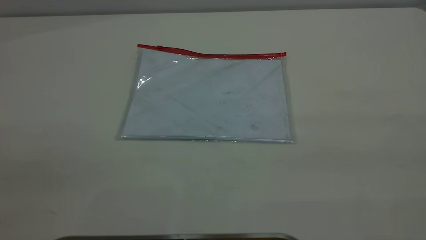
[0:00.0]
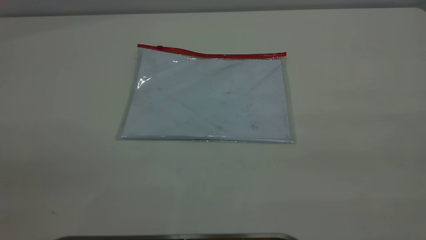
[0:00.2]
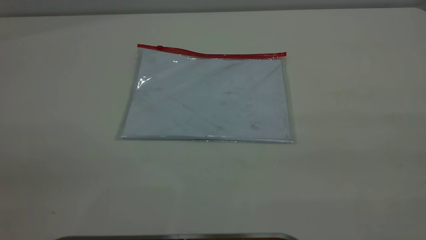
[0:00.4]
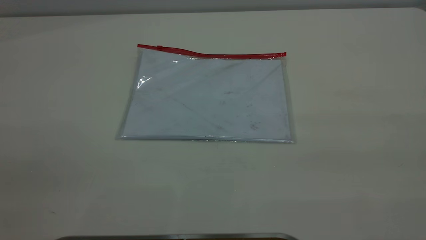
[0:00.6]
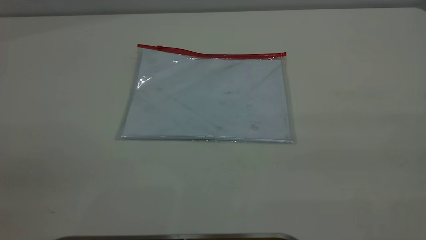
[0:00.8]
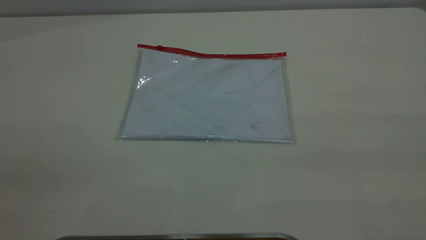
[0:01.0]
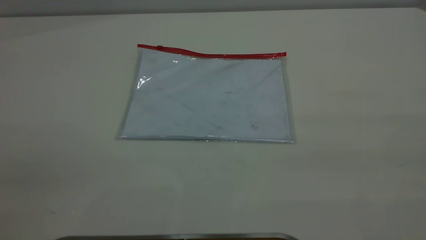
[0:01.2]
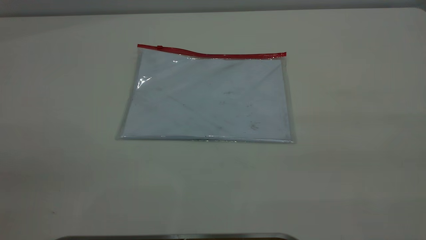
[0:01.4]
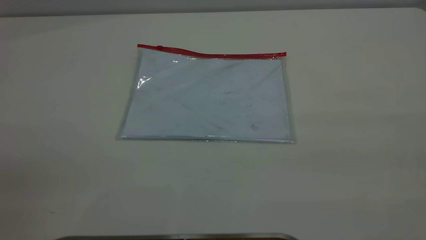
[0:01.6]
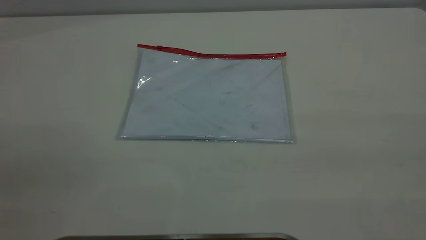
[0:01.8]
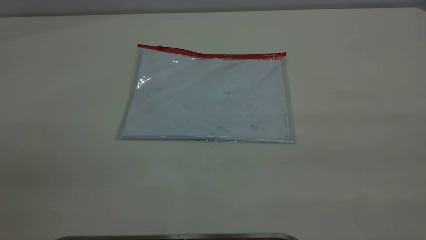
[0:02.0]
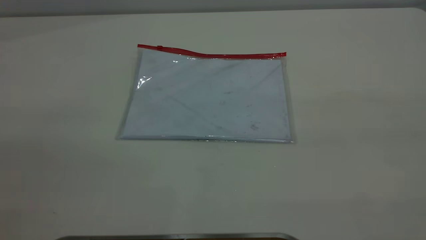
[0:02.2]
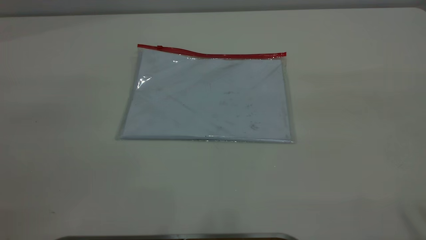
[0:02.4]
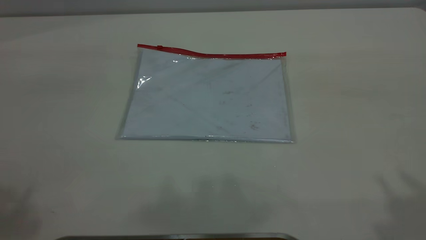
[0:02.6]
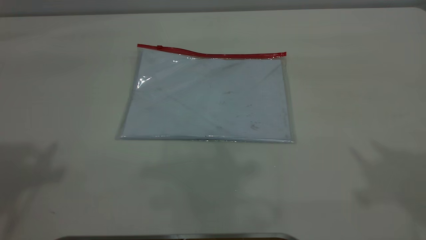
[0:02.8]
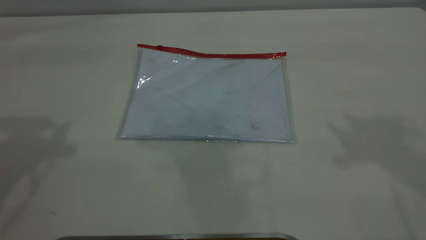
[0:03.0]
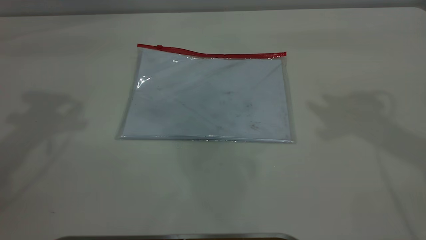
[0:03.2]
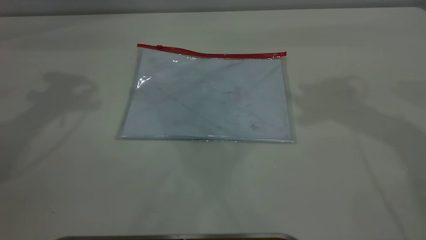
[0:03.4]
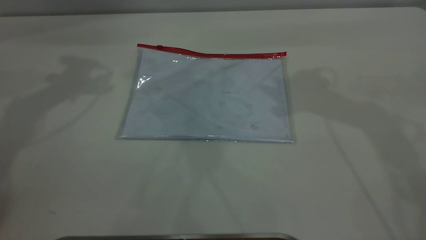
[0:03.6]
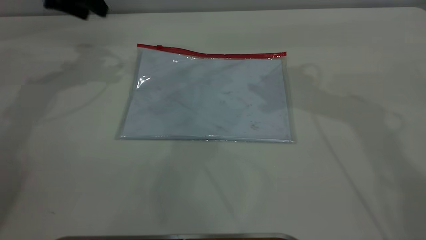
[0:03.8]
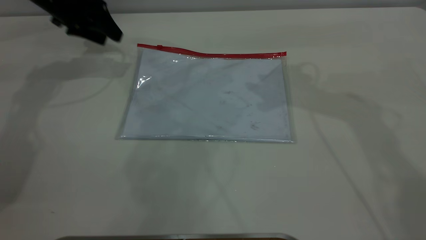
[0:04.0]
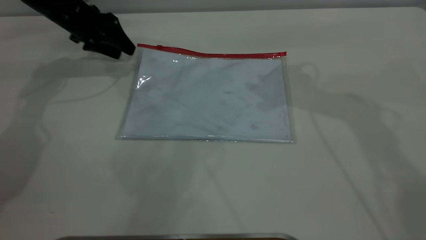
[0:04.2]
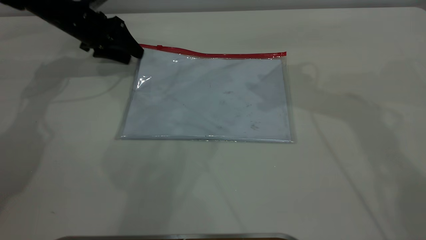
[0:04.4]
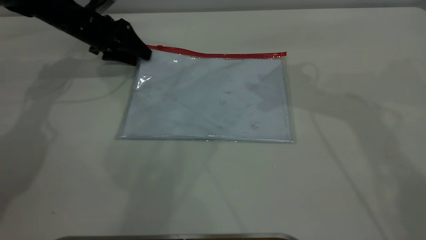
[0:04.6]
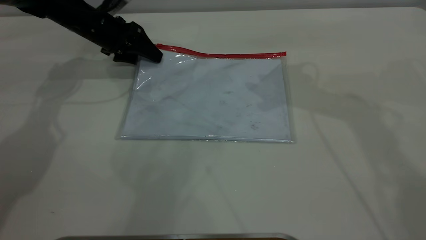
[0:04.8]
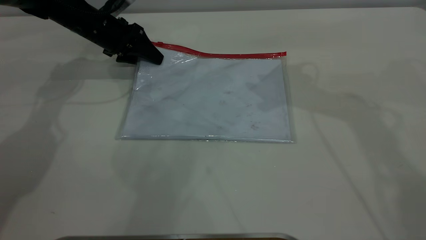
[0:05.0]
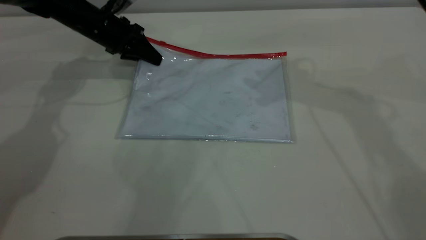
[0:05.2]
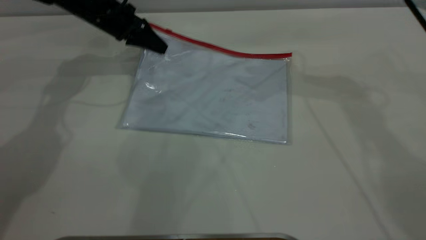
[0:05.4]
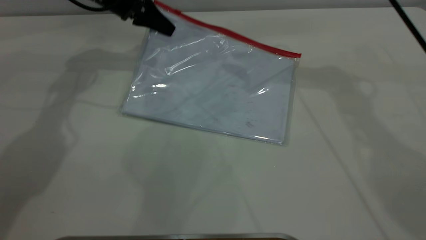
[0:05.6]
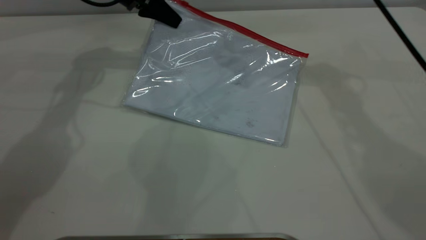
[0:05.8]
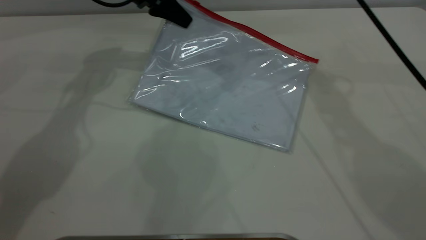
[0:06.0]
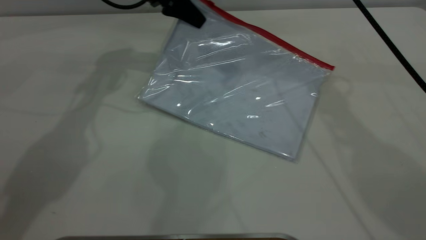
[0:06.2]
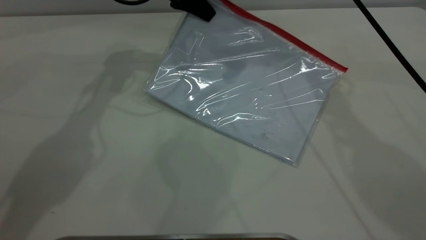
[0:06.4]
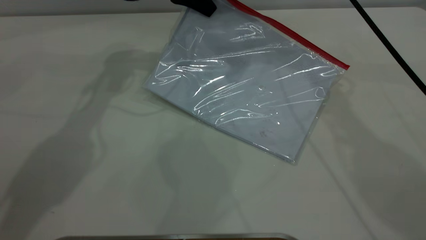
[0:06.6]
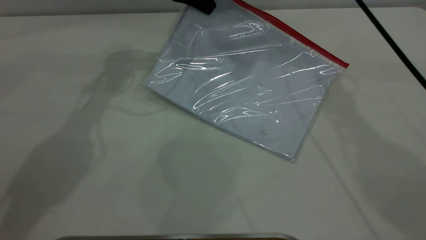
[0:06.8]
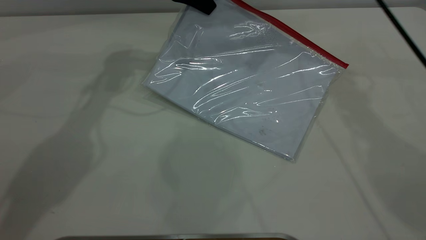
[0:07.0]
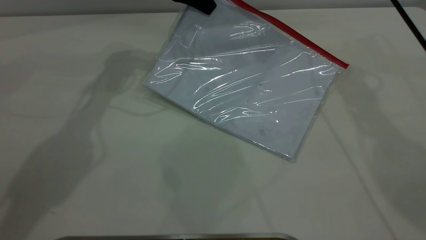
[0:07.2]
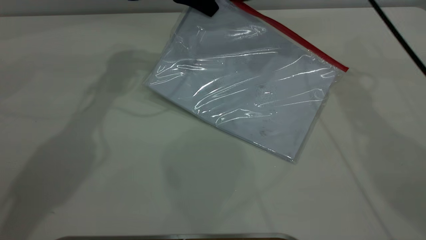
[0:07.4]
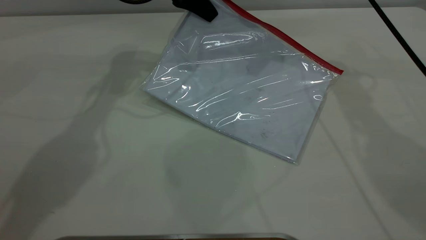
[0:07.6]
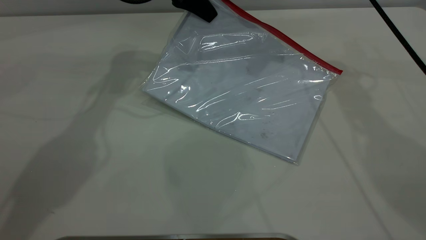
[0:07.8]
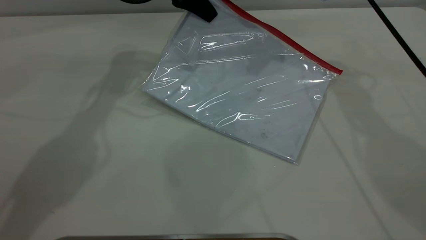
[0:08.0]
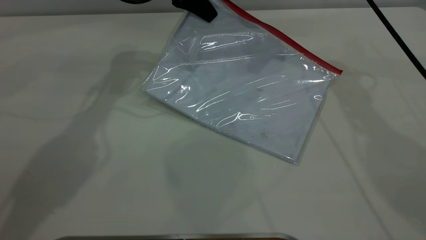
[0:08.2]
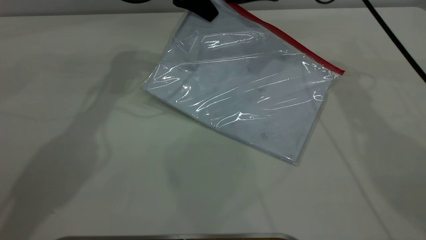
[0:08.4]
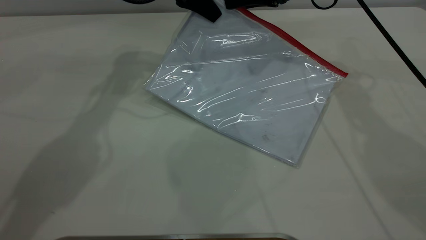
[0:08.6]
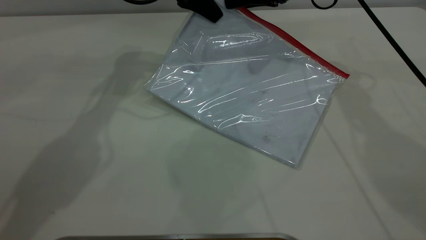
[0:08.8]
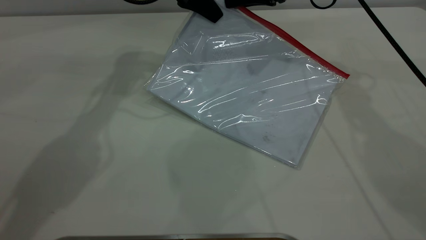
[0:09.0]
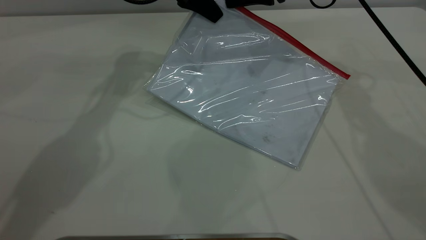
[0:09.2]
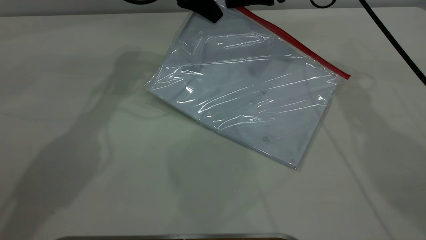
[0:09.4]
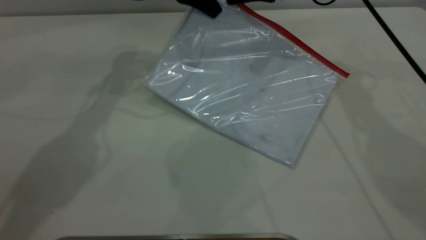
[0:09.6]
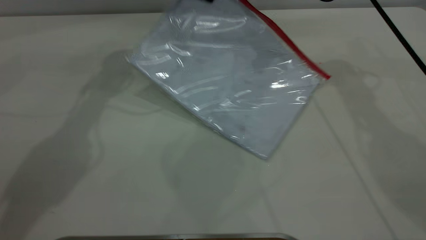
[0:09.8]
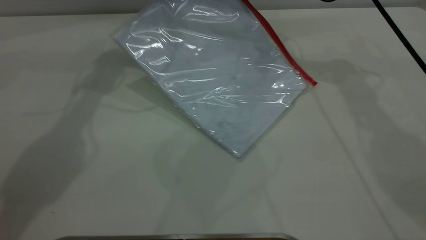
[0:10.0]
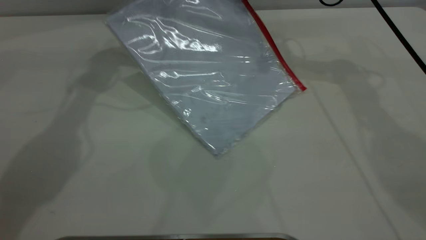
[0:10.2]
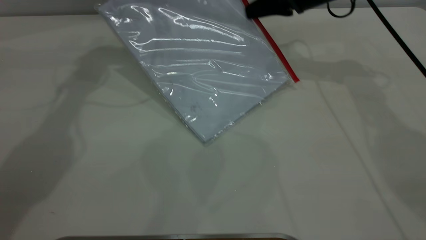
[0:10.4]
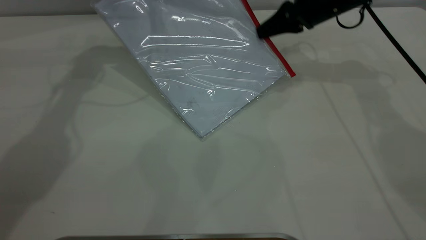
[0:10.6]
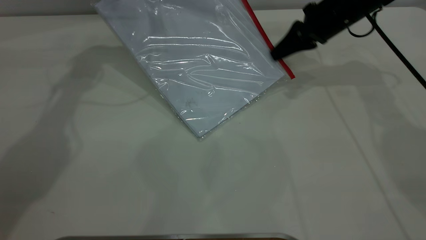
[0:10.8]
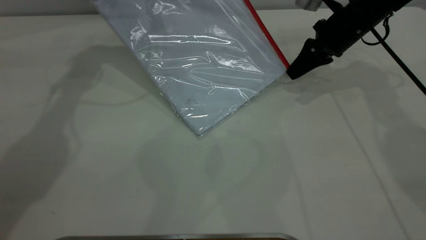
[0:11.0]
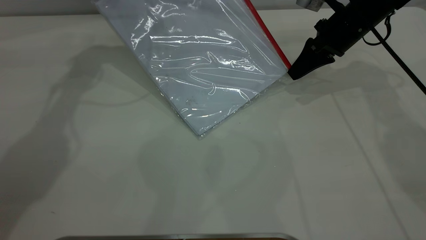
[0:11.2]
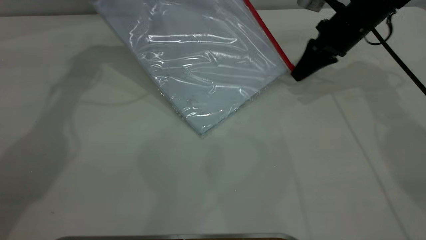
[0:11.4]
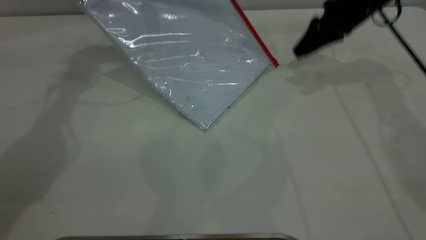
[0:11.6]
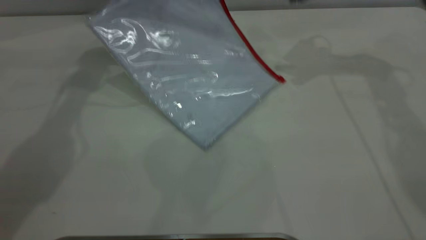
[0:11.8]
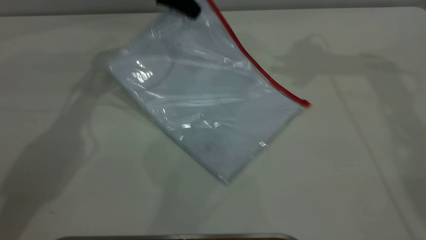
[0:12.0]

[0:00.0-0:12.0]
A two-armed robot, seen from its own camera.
Step, 0:00.0 to 0:05.2: Pick up the transparent plastic bag with the left gripper.
Step, 0:05.6 to 0:11.4: Pulling up the zipper on the transparent plastic bag with the right gripper to close it.
0:00.0 to 0:01.6: Both grippers stay put.
0:03.0 to 0:04.4: The left gripper is displaced downward and forward by roughly 40 cm.
0:04.4 to 0:06.0: The left gripper shifts approximately 15 cm to the right and upward, and closes its fingers, while the right gripper moves to the left and forward, roughly 10 cm.
0:06.0 to 0:07.6: The left gripper moves approximately 5 cm, while the right gripper shifts by roughly 5 cm.
0:07.6 to 0:09.0: The right gripper closes.
0:09.0 to 0:10.4: The left gripper shifts about 5 cm to the left. The right gripper shifts by approximately 5 cm, and closes up.
0:10.4 to 0:12.0: The right gripper shifts approximately 20 cm upward, and opens up, while the left gripper heads downward, covering roughly 5 cm.

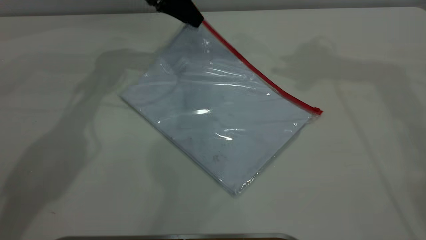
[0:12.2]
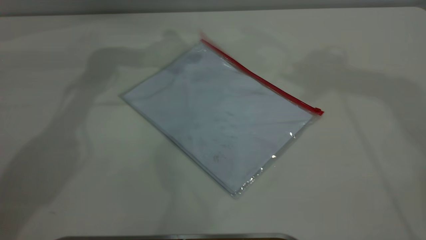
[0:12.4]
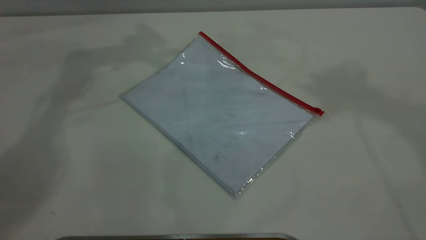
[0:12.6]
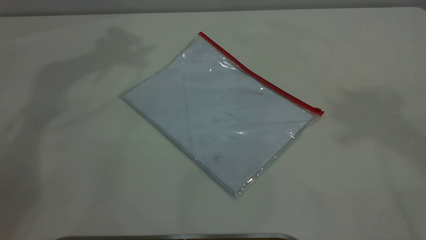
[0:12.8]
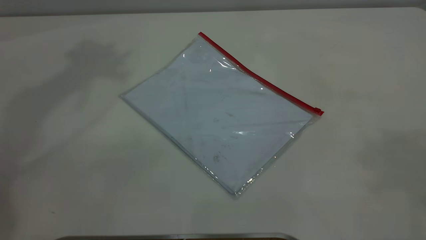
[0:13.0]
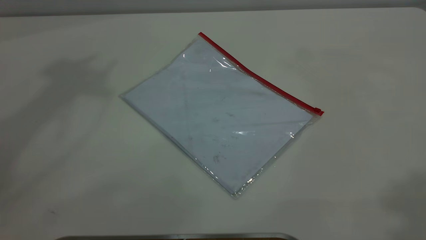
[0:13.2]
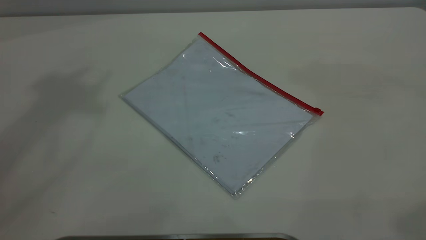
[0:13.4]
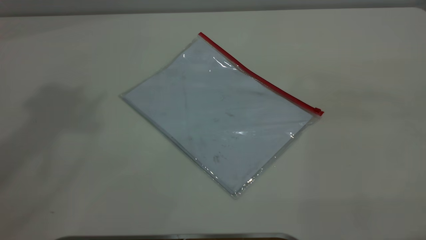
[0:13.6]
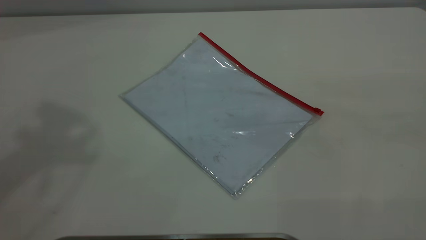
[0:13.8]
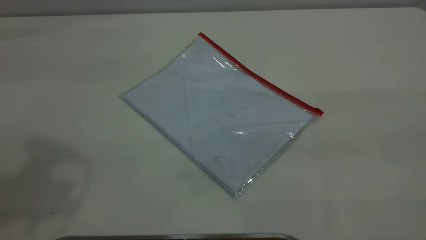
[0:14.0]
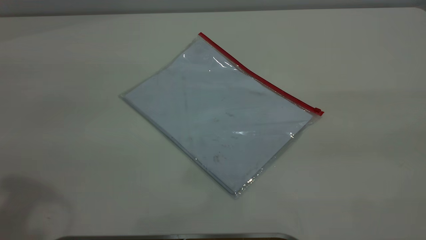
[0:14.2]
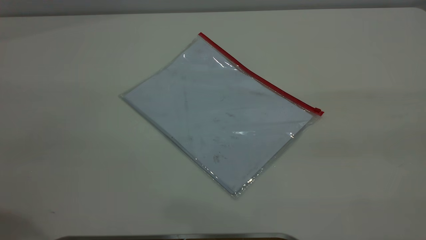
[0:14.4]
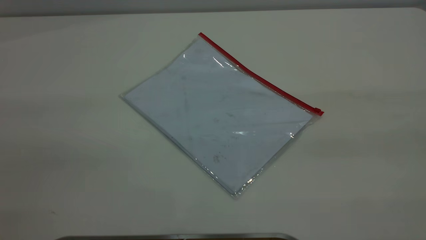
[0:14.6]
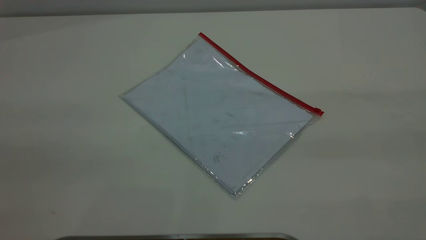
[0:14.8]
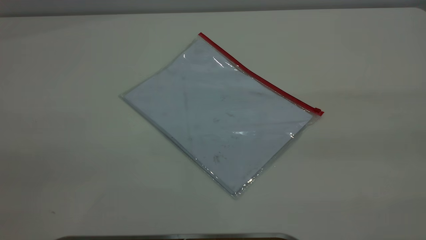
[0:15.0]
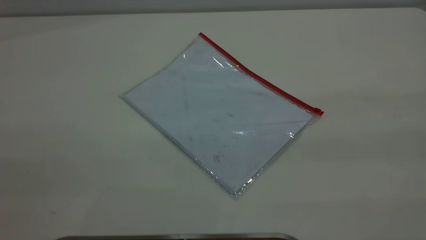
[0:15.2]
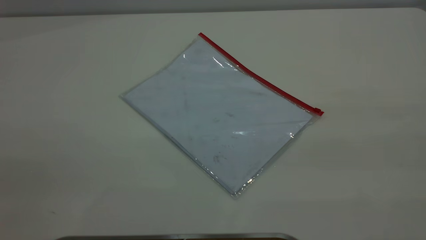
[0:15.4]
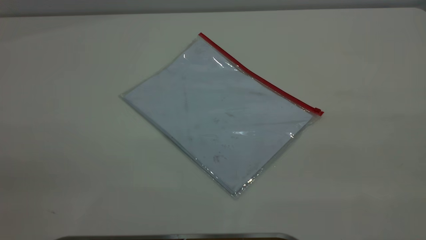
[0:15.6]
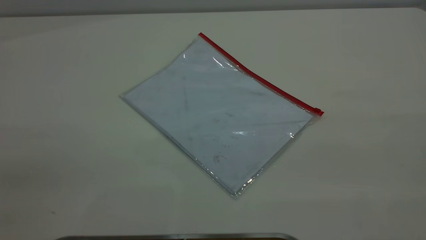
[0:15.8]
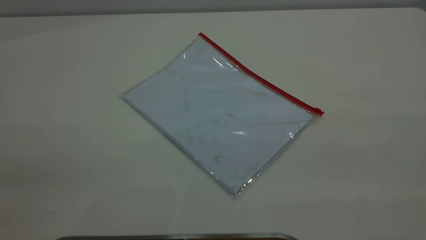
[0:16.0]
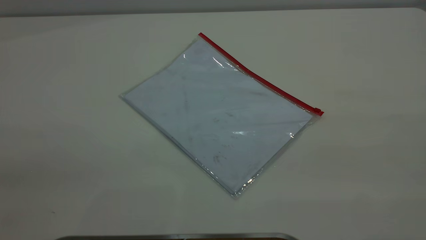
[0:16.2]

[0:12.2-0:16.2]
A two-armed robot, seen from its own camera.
0:12.2 to 0:13.6: The right gripper shifts some 35 cm backward, while the left gripper goes approximately 50 cm upward and backward.
